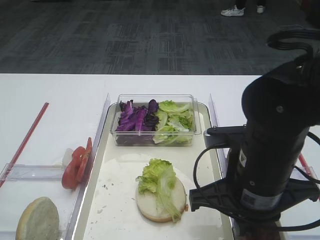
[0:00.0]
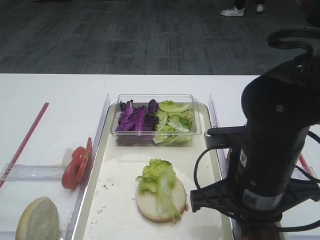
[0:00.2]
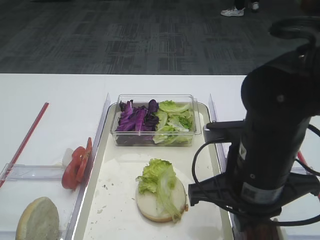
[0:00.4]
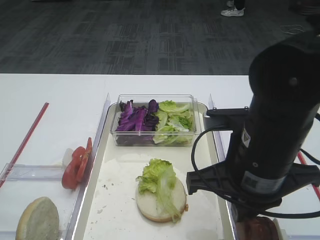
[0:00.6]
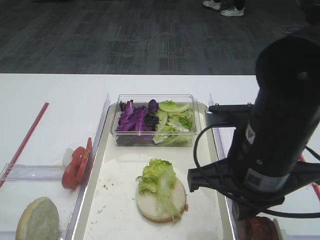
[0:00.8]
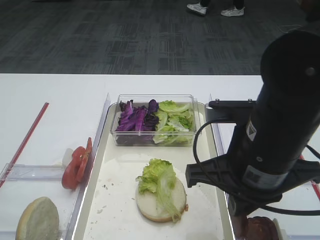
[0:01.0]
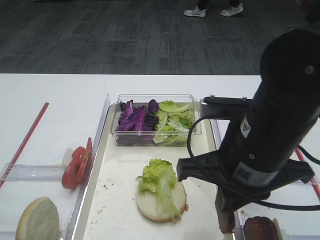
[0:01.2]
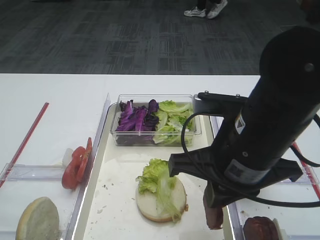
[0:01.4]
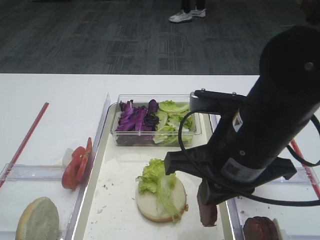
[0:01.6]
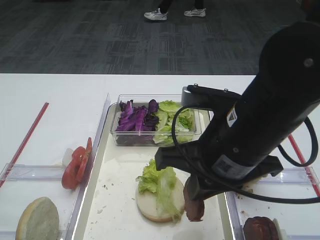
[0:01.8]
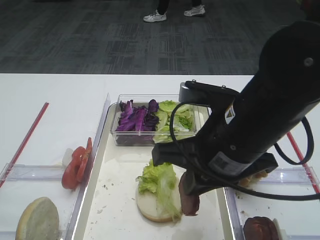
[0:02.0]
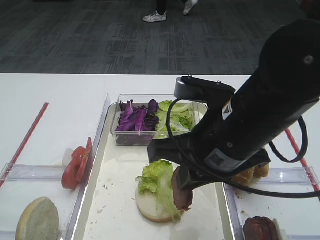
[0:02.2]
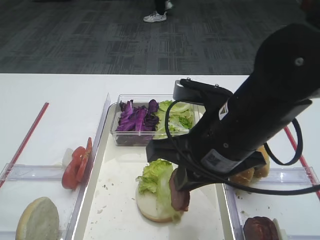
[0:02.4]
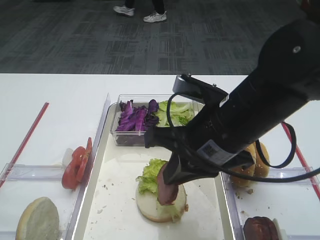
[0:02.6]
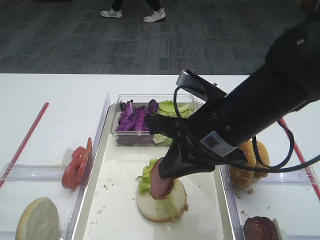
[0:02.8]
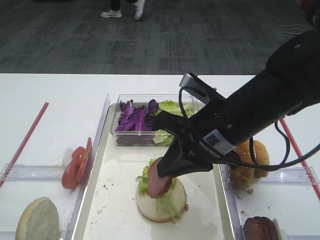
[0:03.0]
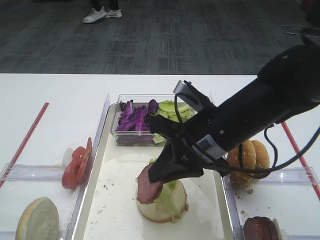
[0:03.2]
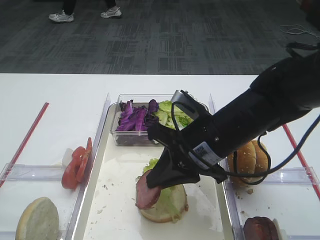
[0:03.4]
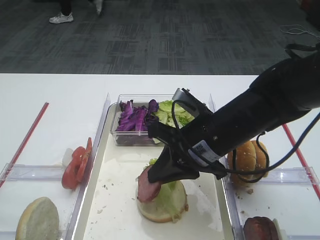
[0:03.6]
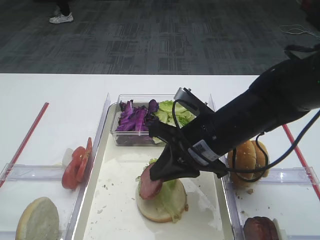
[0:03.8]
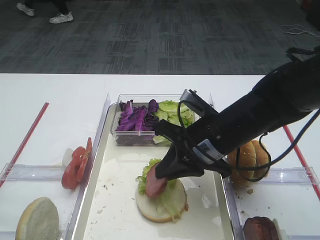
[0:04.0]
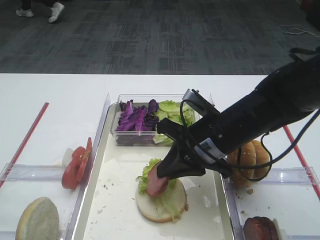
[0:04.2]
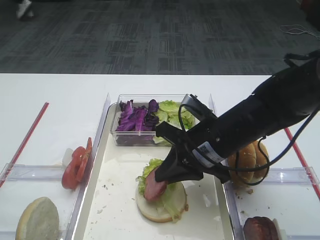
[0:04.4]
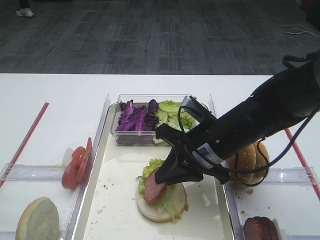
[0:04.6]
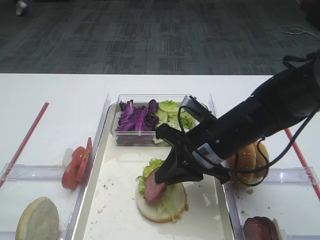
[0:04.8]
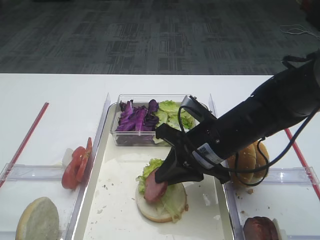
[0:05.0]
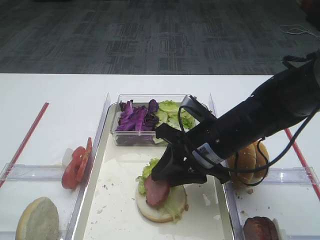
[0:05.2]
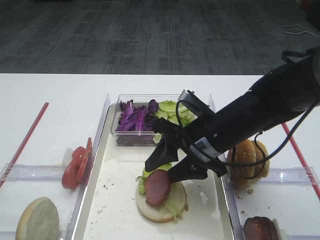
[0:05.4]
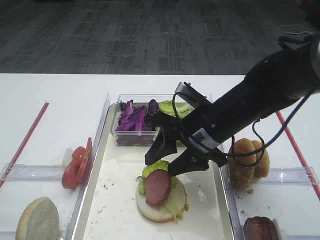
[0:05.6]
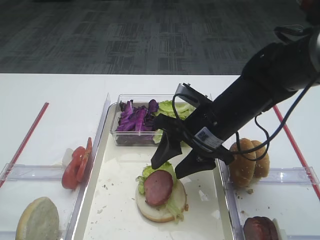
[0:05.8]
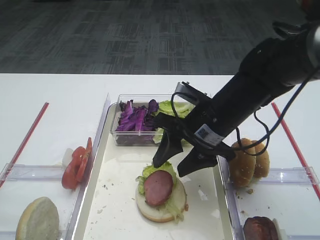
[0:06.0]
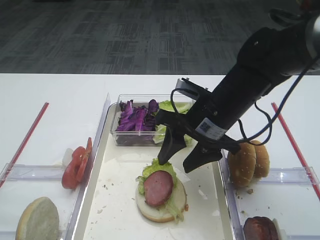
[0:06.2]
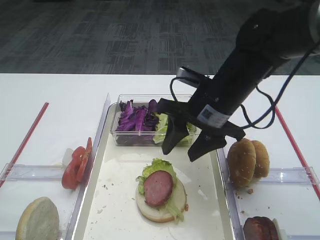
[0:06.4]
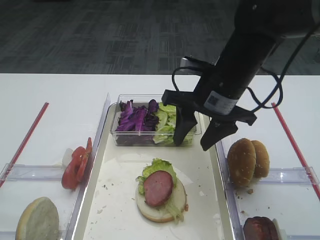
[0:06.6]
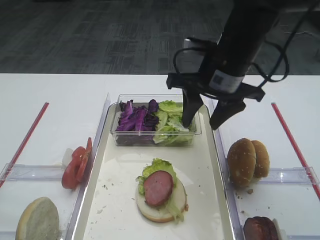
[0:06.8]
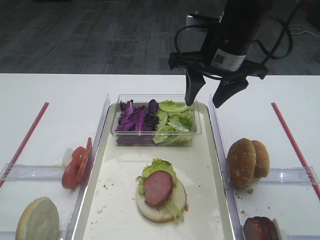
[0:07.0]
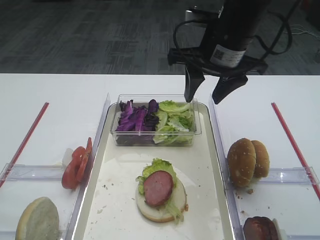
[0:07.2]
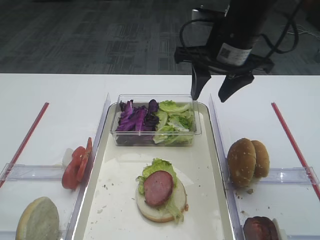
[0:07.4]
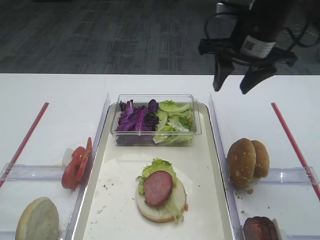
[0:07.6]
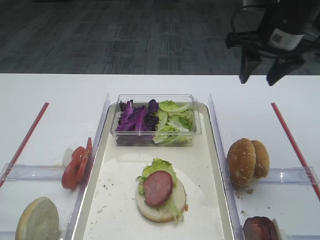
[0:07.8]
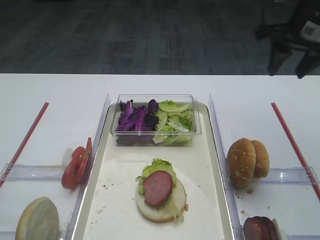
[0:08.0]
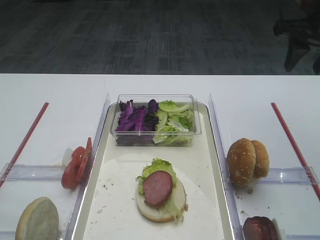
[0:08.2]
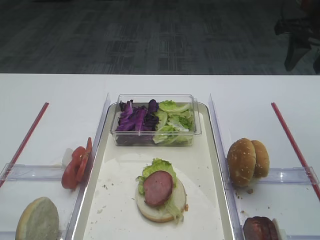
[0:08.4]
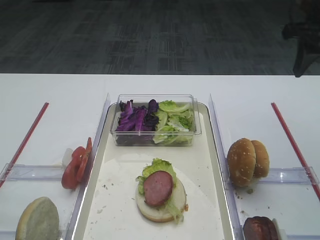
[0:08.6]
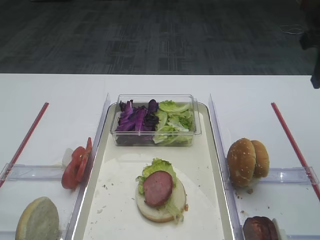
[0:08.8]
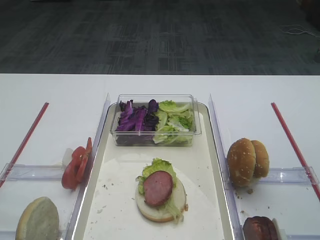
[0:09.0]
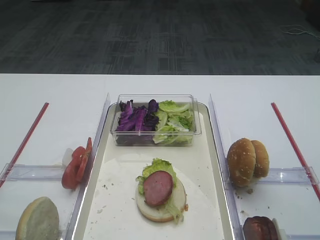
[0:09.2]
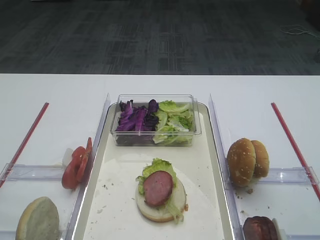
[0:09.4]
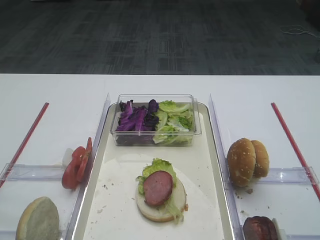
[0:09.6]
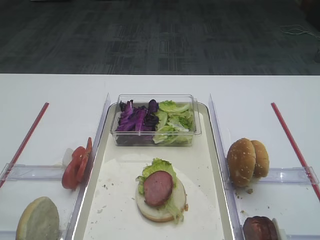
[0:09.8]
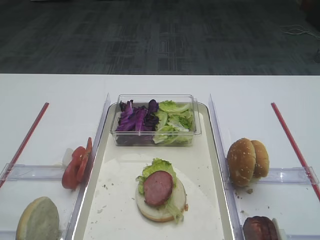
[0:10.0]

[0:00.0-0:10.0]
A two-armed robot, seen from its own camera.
Step, 0:01.2 to 0:06.2: Place the cutlet on the lettuce leaf with the right gripper.
0:00.0 to 0:01.4: The grippers move only a little.
0:02.8 to 0:04.2: The right gripper heads downward, covering about 5 cm.
0:04.2 to 0:05.8: The right gripper opens its fingers.
0:05.8 to 0:07.2: The right gripper heads upward and forward, covering some 15 cm.
0:07.2 to 0:08.6: The right gripper moves to the right, about 15 cm.
0:08.6 to 0:10.0: The right gripper heads backward, covering some 30 cm.

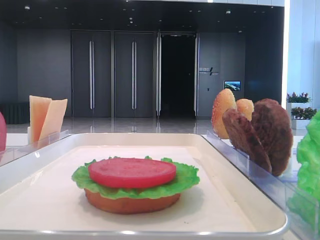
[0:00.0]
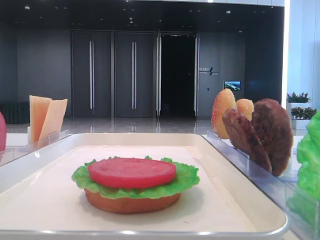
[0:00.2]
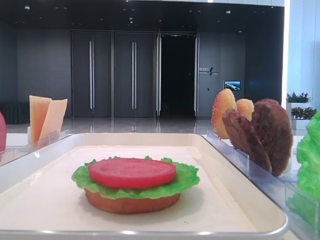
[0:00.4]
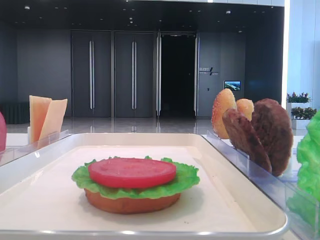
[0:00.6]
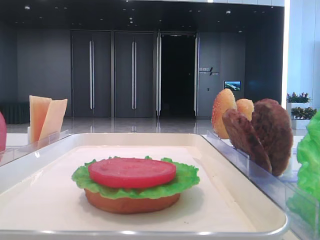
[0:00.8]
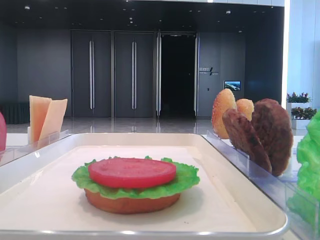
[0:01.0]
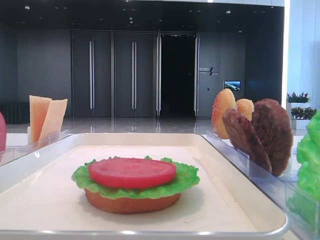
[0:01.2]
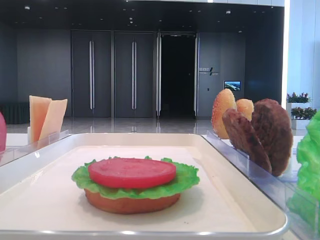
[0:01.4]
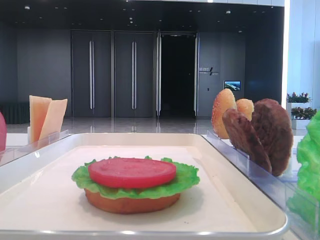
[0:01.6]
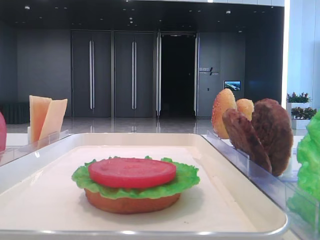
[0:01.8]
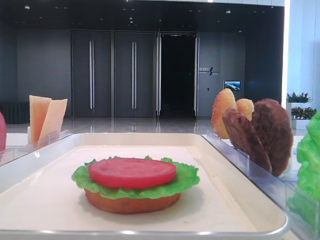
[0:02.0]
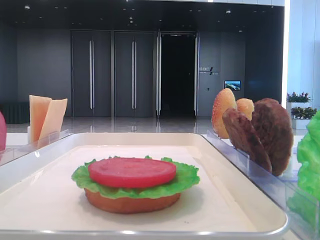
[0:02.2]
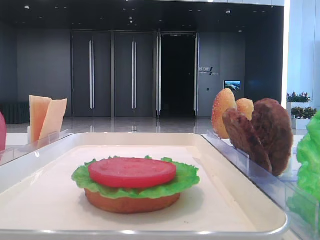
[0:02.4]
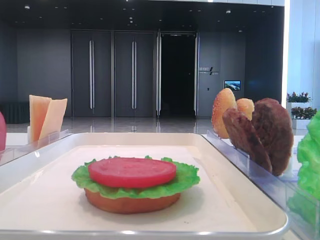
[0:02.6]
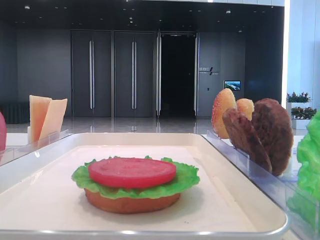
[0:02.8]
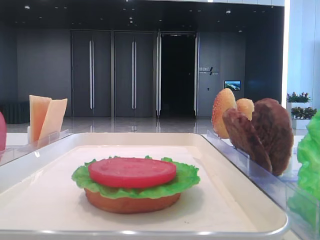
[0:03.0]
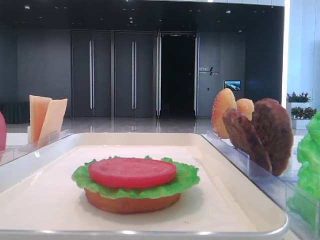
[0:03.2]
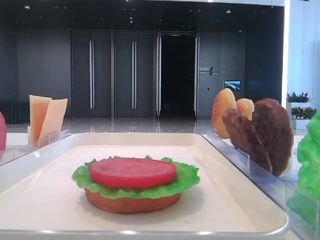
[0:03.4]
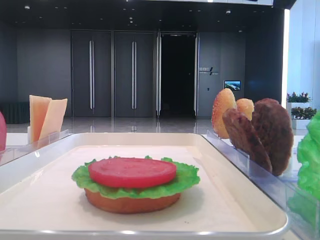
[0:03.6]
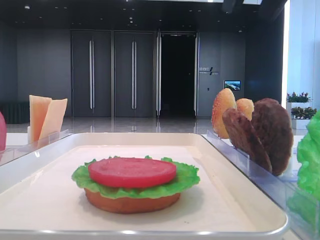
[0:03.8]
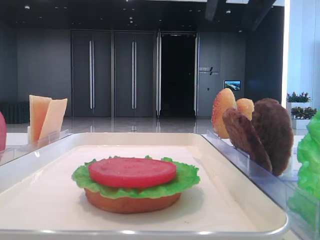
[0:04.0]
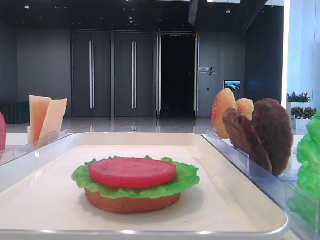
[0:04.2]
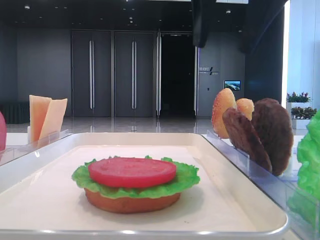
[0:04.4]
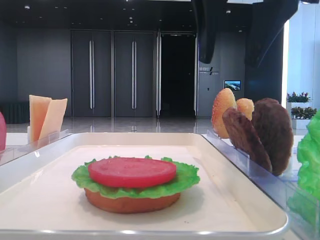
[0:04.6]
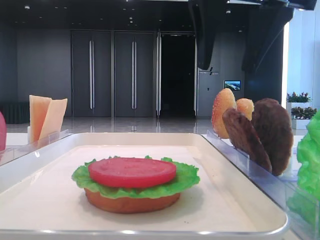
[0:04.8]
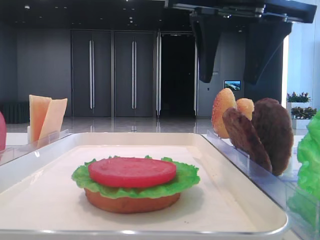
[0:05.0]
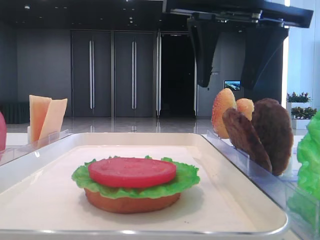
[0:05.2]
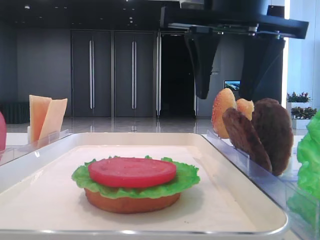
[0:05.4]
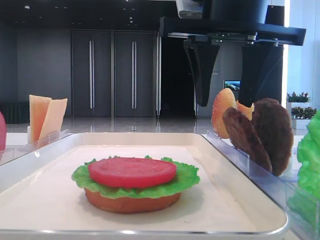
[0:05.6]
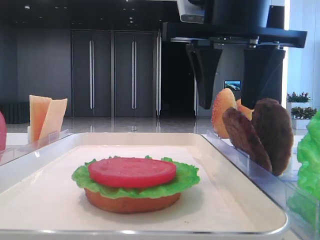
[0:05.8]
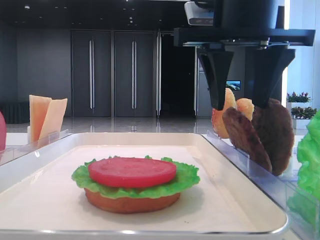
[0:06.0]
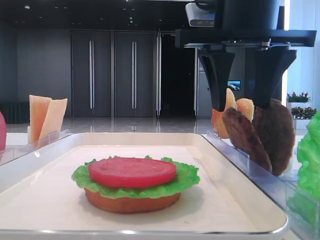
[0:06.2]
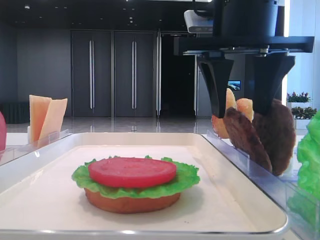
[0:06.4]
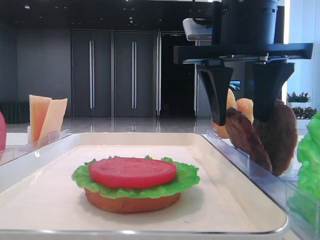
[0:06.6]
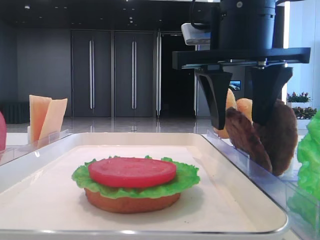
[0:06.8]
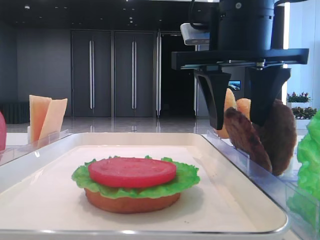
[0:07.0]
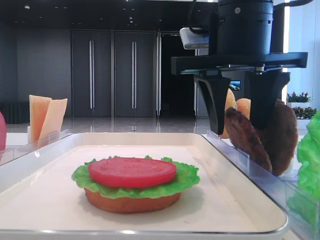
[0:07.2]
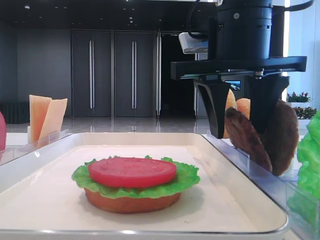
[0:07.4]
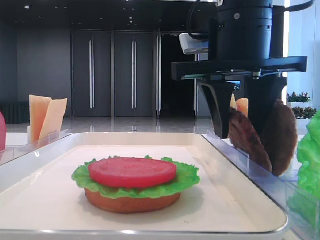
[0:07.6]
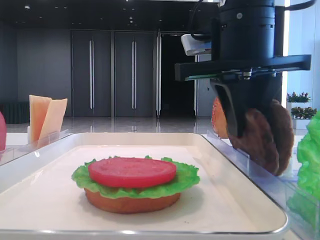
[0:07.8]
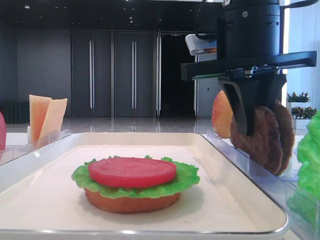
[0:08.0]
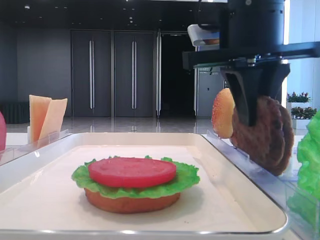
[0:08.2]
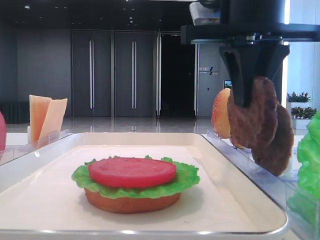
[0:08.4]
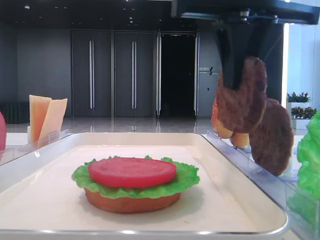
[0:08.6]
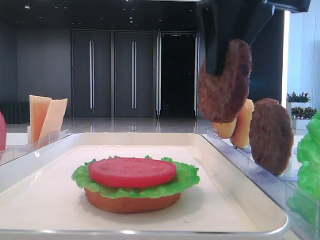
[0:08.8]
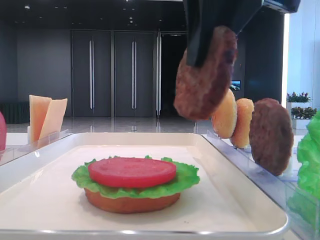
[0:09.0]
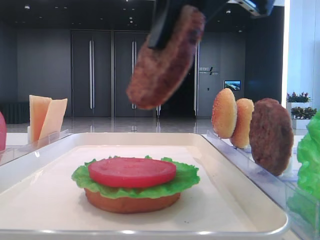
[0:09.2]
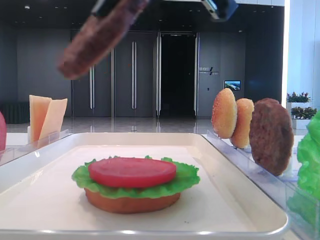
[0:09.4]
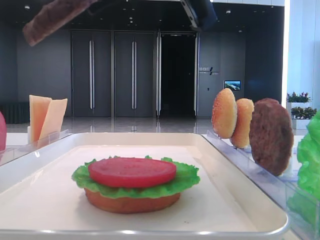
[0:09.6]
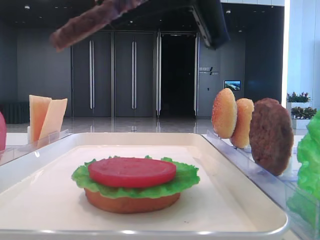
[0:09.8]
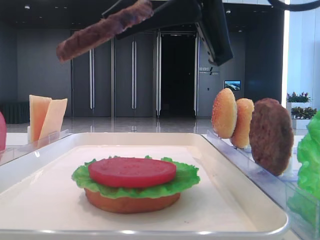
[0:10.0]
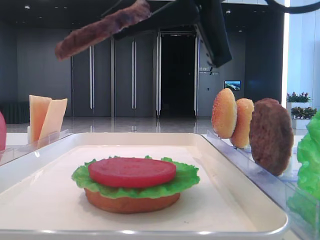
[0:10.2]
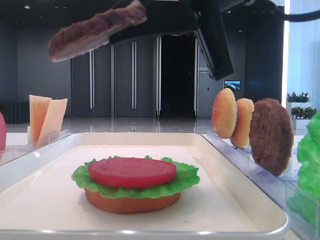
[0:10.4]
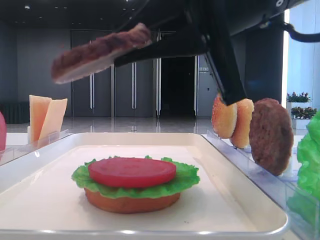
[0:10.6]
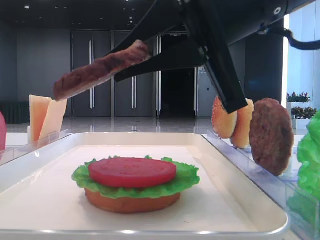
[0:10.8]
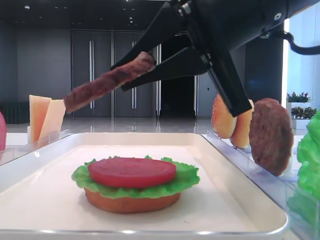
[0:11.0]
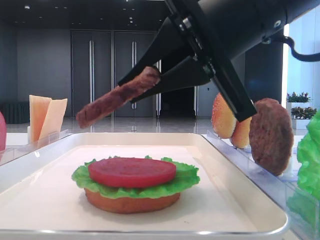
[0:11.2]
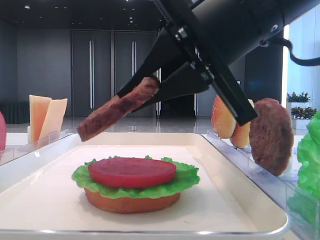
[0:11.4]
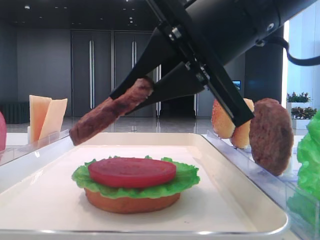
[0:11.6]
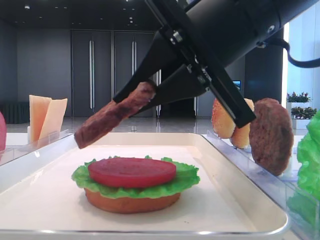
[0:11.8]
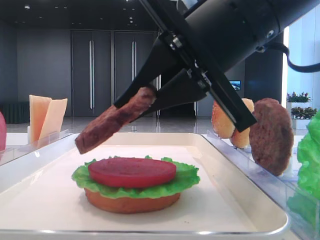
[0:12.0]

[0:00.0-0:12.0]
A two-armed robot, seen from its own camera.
Step, 0:00.0 to 0:07.8: Grab the patty with the right hand.
0:03.0 to 0:04.4: The right gripper shifts approximately 15 cm to the left, and opens up.
0:04.4 to 0:06.0: The right gripper goes approximately 5 cm downward.
0:06.0 to 0:07.6: The grippers make only small movements.
0:07.6 to 0:09.0: The right gripper heads upward and backward, covering some 10 cm, and closes up.
0:10.4 to 0:12.0: The right gripper travels downward by about 5 cm.
